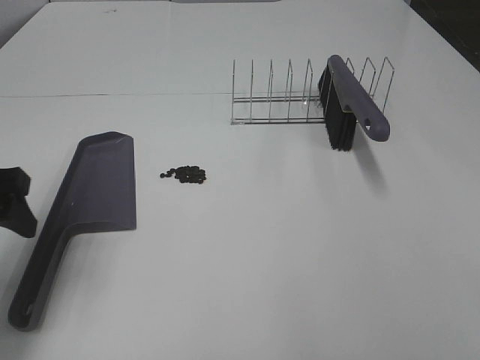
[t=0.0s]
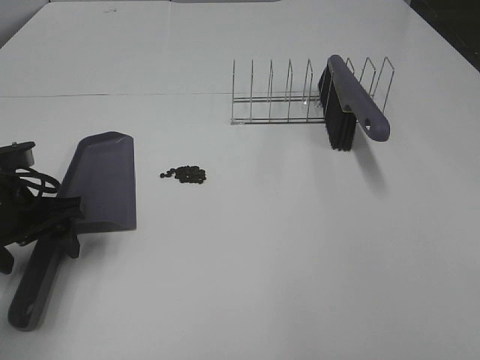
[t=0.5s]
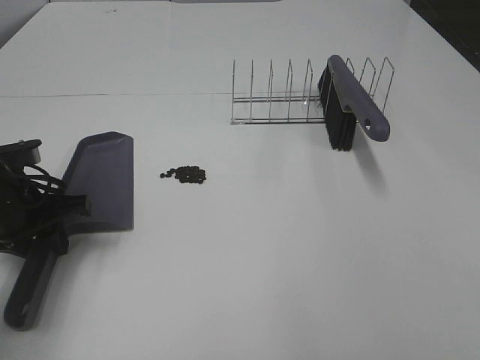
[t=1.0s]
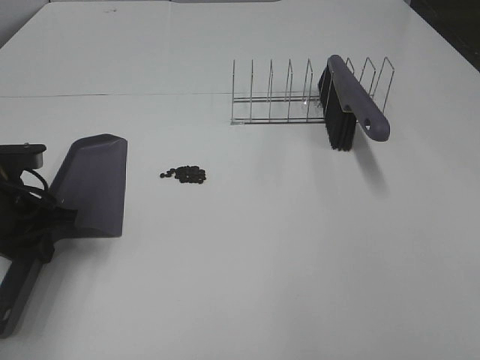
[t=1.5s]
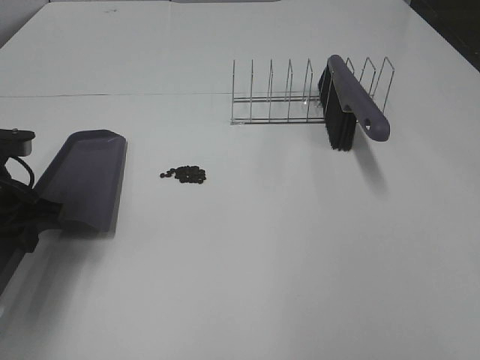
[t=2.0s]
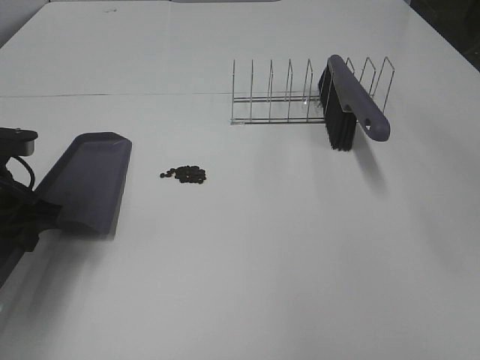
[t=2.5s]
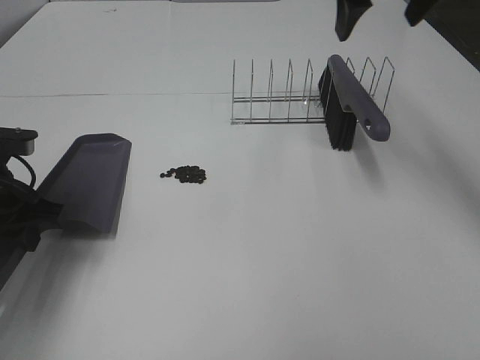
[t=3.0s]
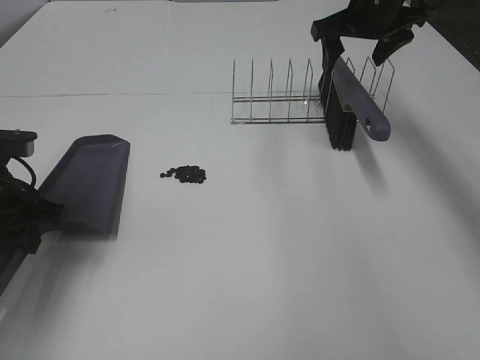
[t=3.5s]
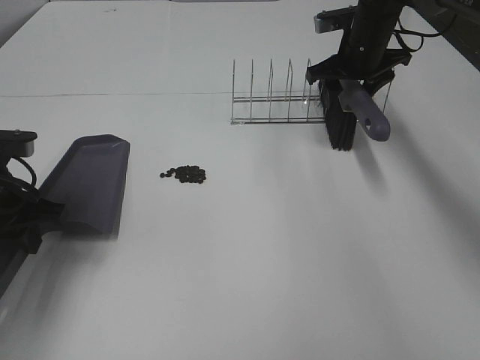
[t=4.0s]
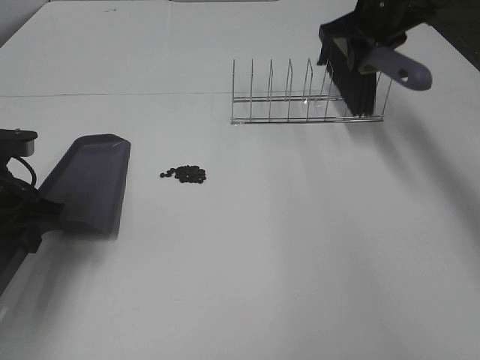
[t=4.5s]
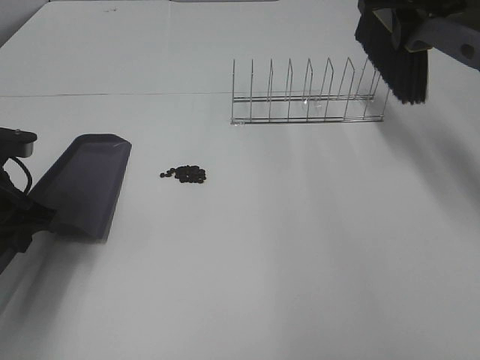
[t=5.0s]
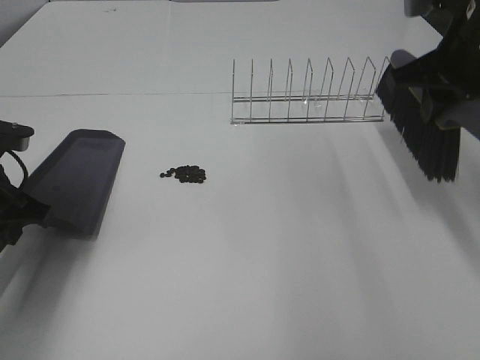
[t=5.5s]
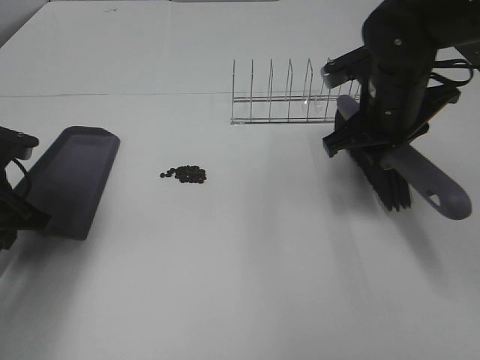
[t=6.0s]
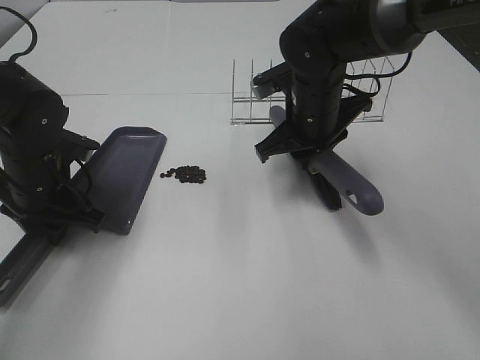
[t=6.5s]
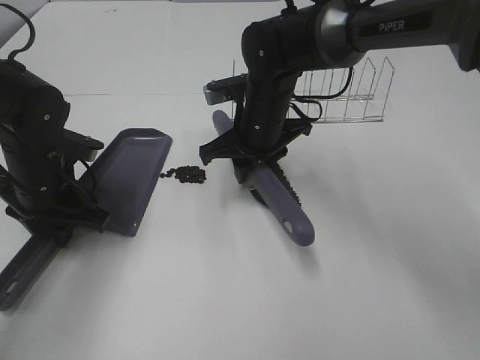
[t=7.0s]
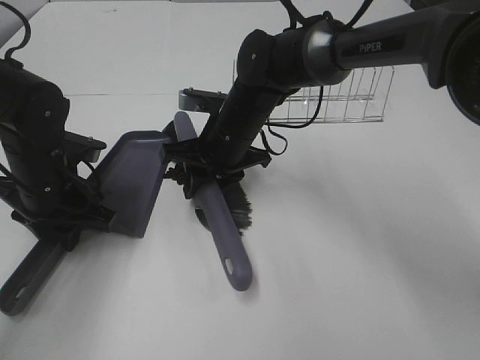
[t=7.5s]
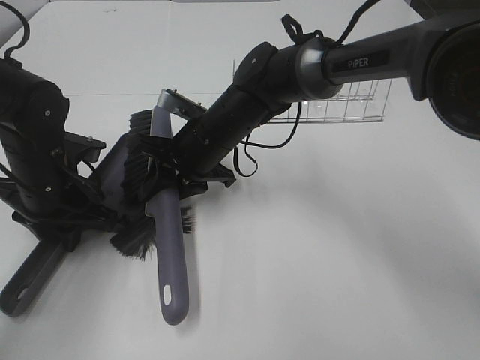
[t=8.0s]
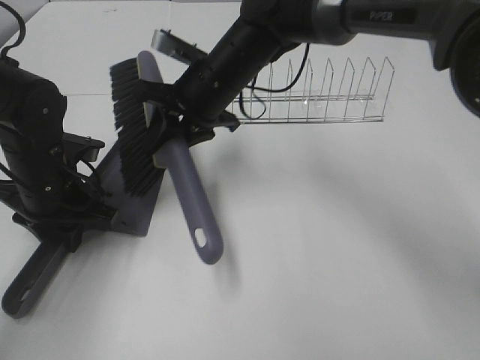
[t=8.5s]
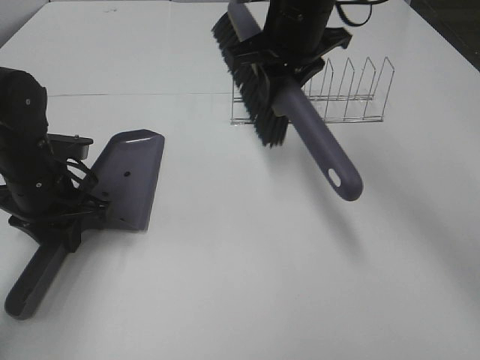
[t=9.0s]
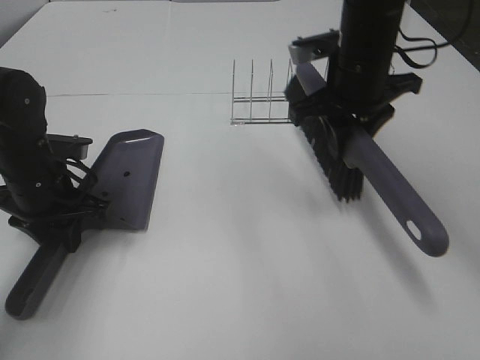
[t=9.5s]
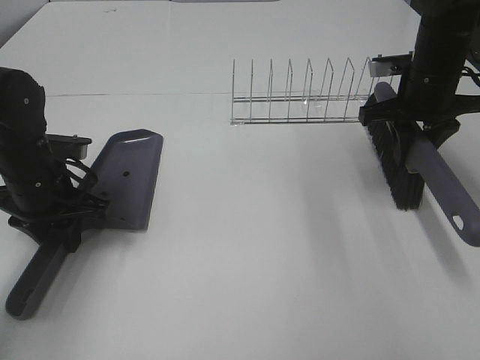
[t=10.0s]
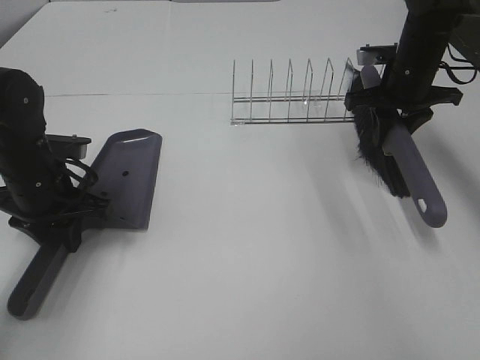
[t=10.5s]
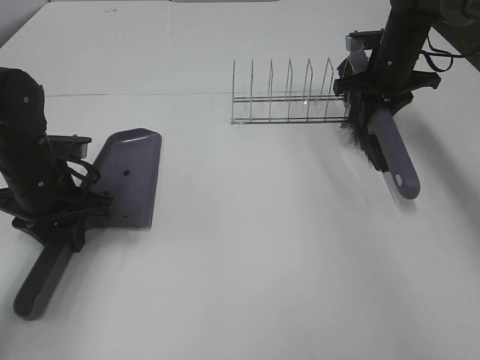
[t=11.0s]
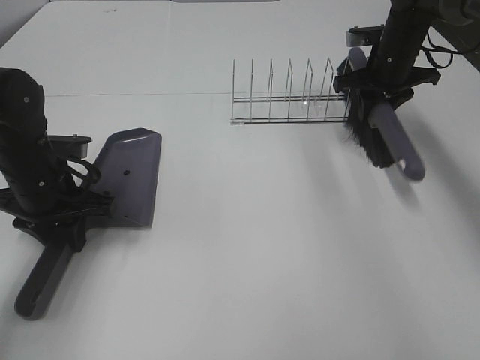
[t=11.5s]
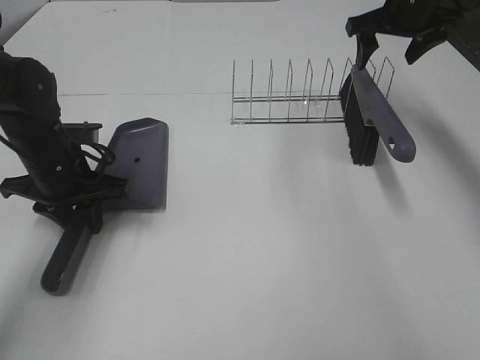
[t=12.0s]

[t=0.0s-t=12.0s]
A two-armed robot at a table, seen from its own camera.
Task of the whole recording: Sweep Coffee Bean.
Step, t=1.5s to t=4.0s: Right hand:grab the broom.
Step, t=4.5s to t=8.5s: Right hand:sweep the coffee beans into the dustpan.
Step, t=9.0s to t=11.5s: Right hand:place the broom on the rack.
t=0.0s to t=2.0s: The left gripper heads downward, covering roughly 5 cm, and closes.
t=2.0s to t=4.0s: The right gripper travels forward and downward by some 50 cm, and closes.
t=4.0s to t=6.0s: The right gripper heads backward, covering approximately 15 cm, and closes its fingers.
t=6.0s to t=8.0s: The right gripper travels to the left and downward by some 20 cm; the left gripper is displaced to the right by roughly 5 cm.
t=8.0s to t=10.0s: The right gripper heads to the right, covering roughly 25 cm.
t=10.0s to t=12.0s: The right gripper moves forward and upward, some 10 cm, and opens its fingers.

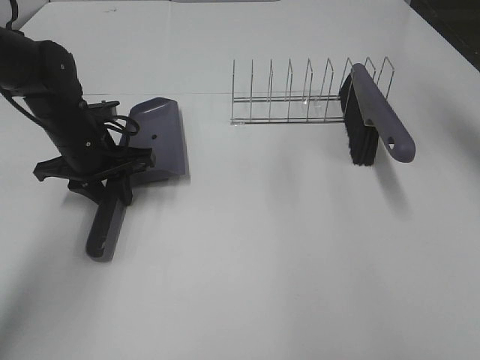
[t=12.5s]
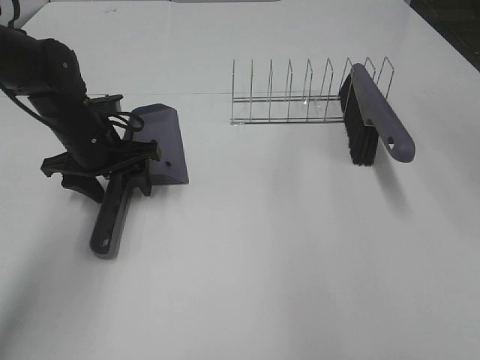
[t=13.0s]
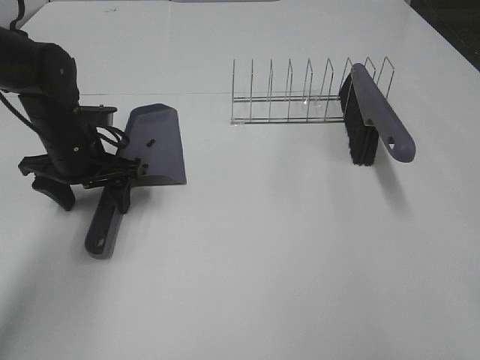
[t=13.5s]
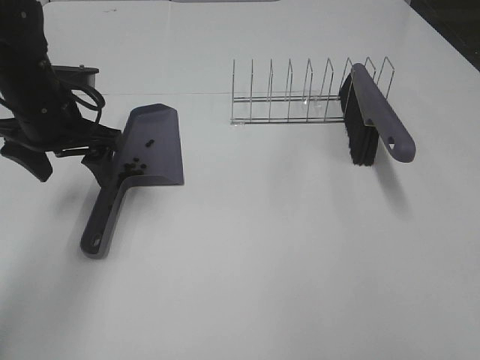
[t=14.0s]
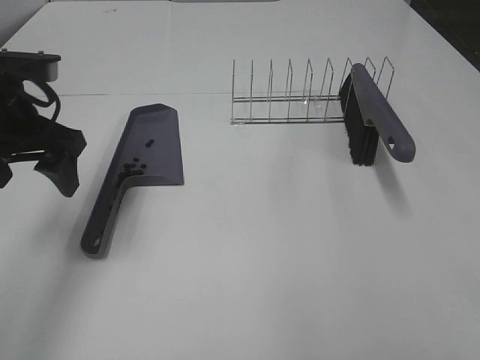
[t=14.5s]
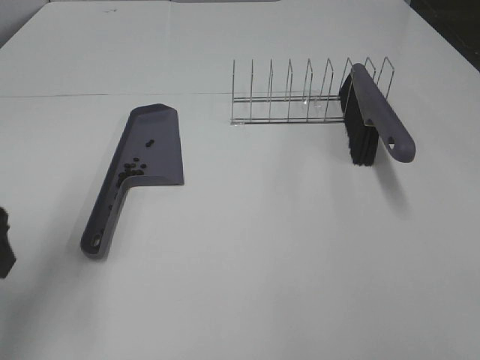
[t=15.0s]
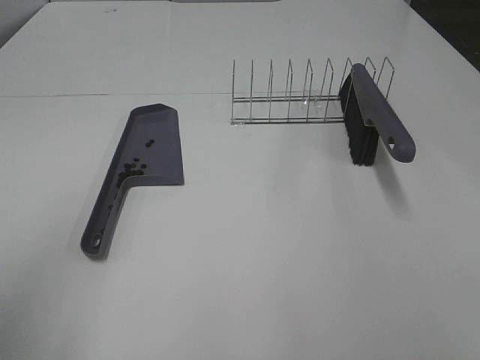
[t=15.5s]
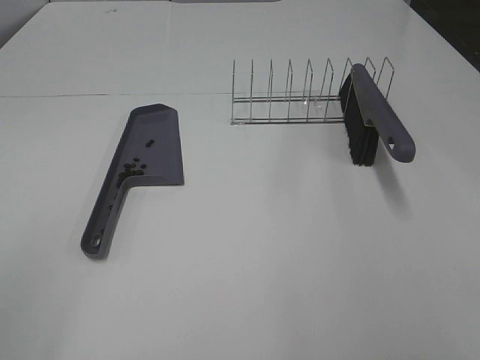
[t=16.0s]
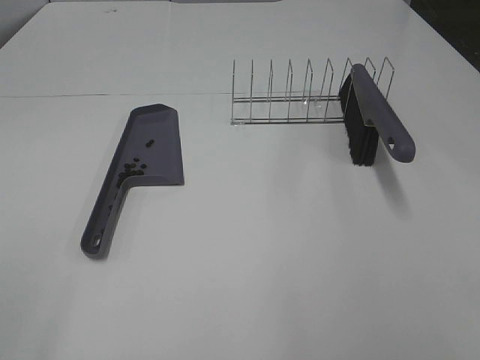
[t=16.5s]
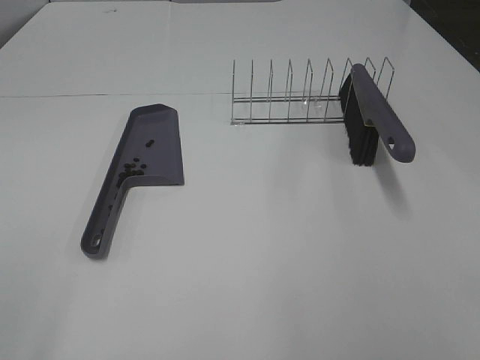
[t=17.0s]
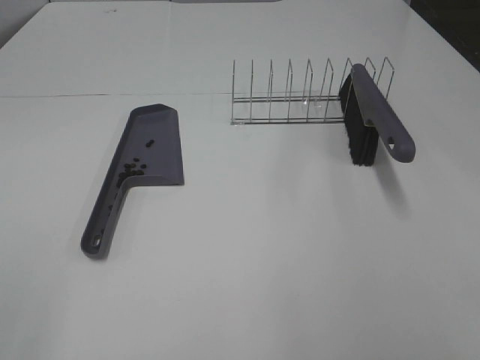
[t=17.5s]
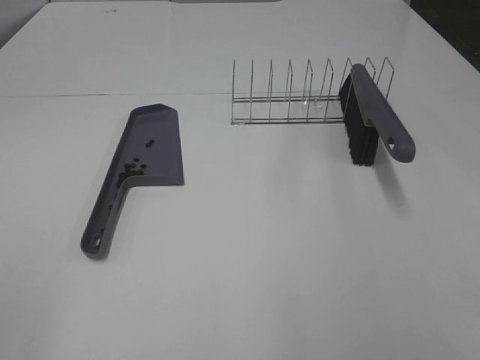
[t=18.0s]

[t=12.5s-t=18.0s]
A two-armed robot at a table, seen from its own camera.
Task of the whole recording: Sweep Coffee Bean.
t=12.5s to t=14.5s: The right gripper heads backward, covering some 40 cm. The left gripper goes about 15 cm upward and backward, and opens.
t=14.5s to t=16.0s: The left gripper is displaced backward by some 30 cm.
